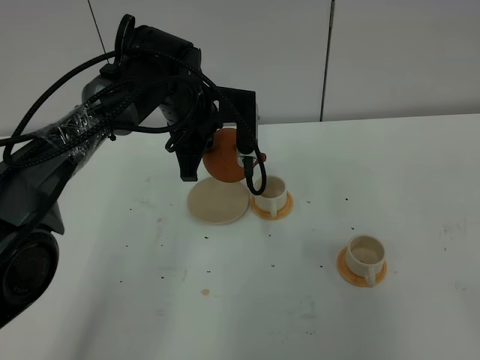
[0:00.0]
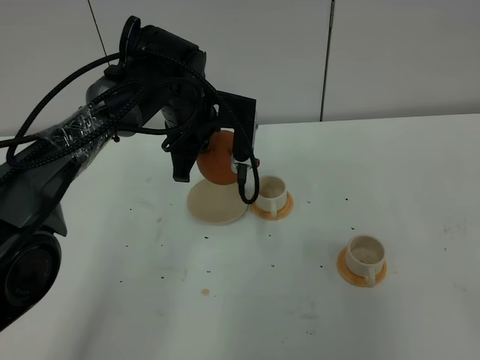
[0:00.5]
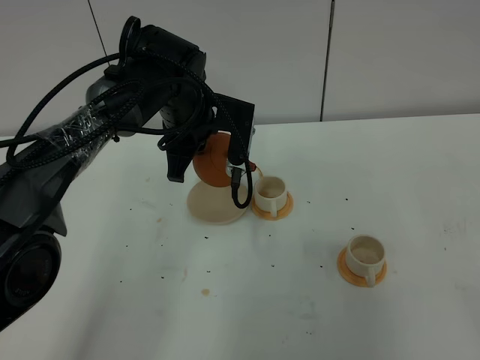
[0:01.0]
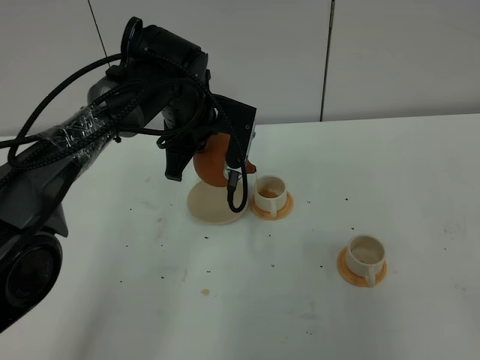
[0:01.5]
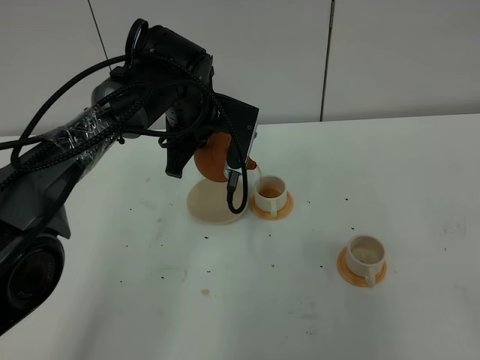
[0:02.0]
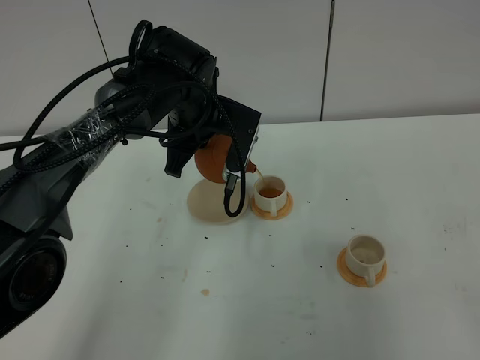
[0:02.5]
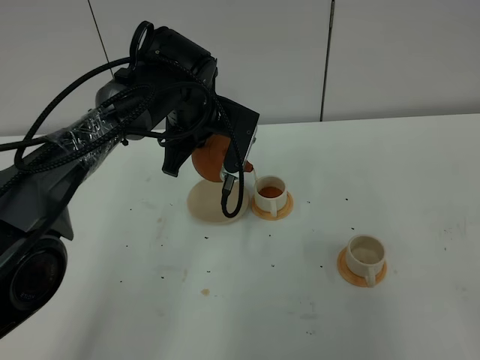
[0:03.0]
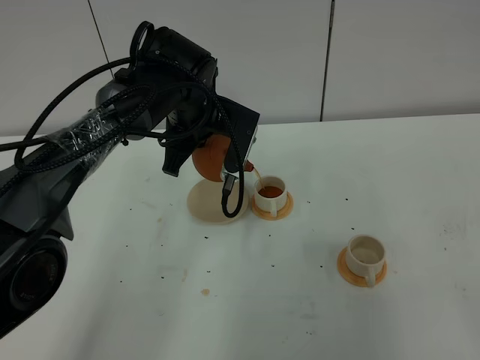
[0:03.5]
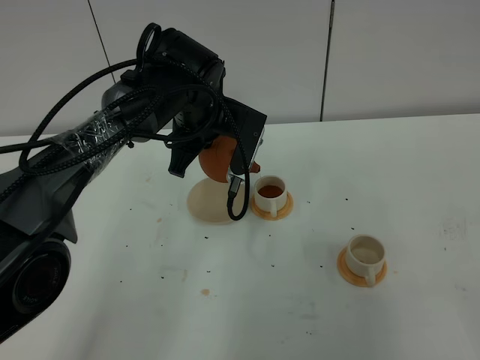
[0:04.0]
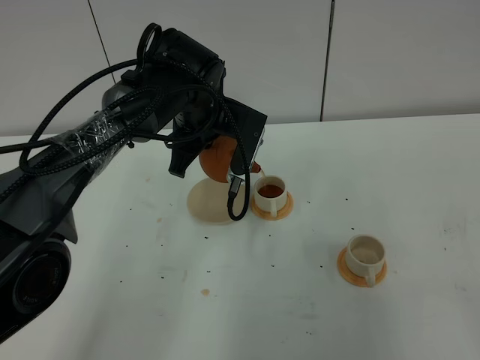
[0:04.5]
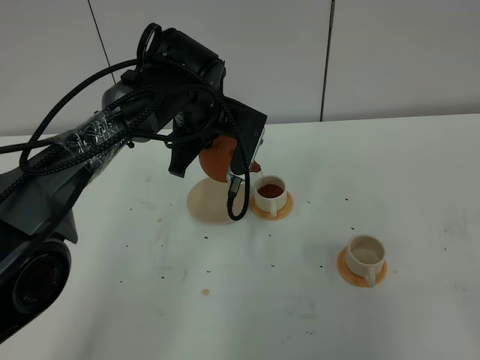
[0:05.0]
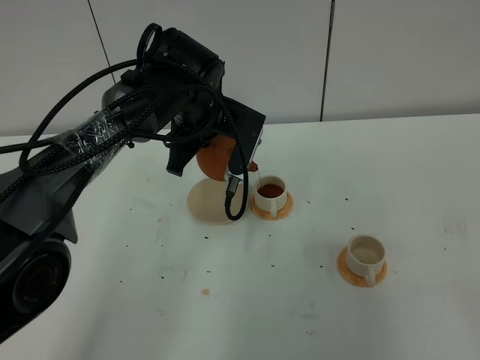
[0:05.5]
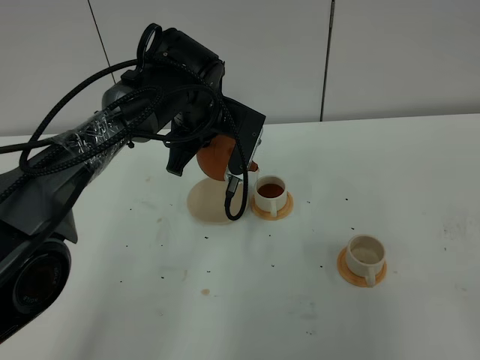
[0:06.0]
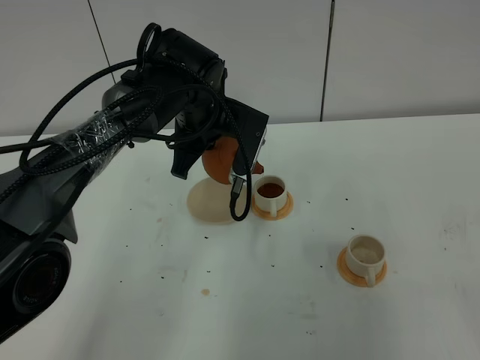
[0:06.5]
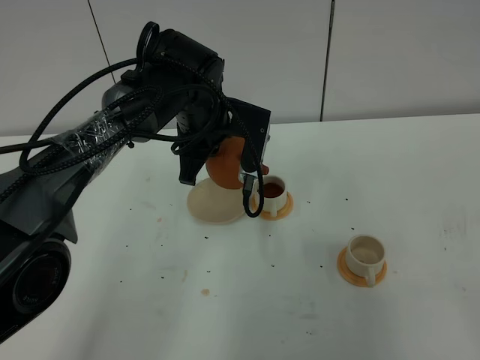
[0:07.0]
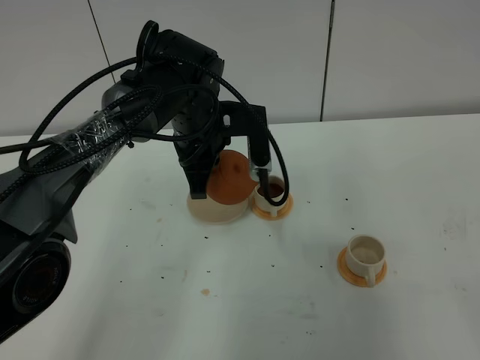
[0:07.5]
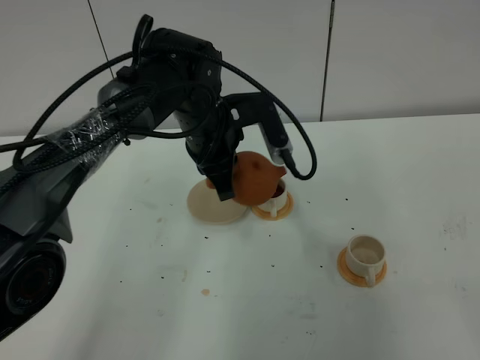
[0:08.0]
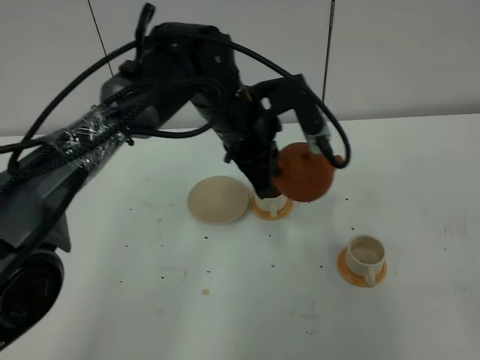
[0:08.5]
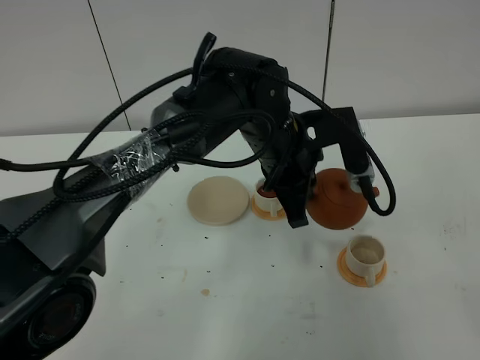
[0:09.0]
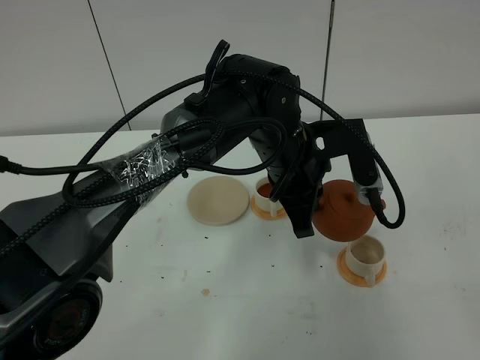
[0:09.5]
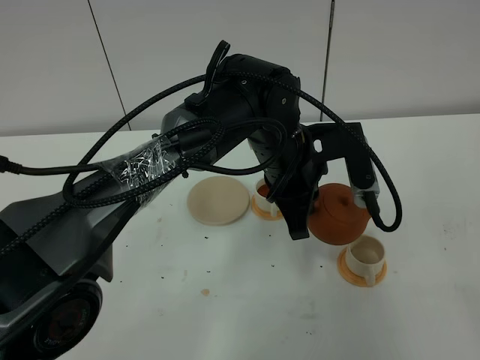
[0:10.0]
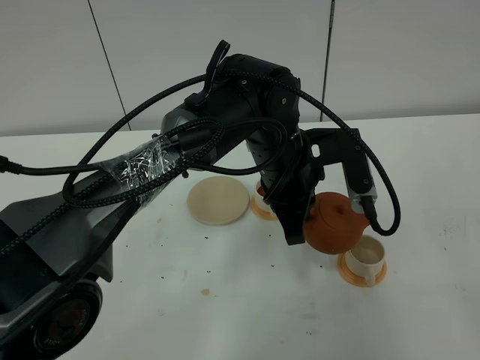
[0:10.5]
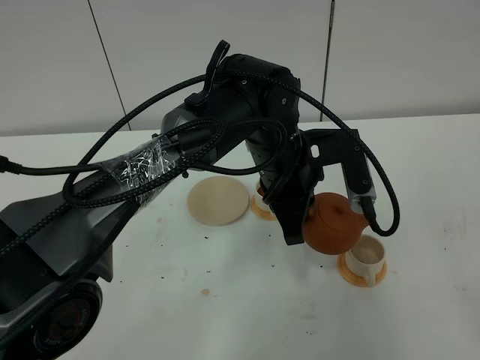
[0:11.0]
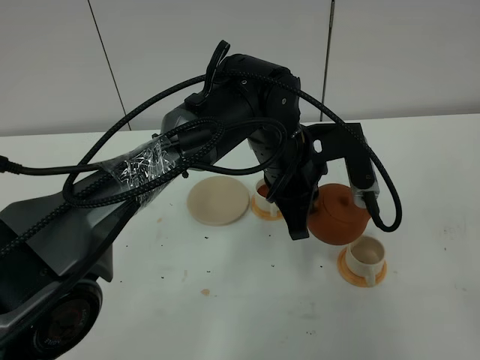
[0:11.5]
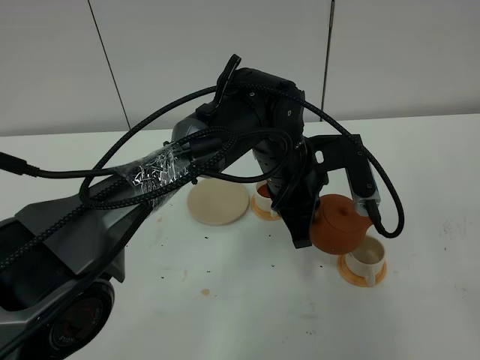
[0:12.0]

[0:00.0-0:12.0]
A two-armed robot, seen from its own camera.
Task of the whole recording: grasp the brown teapot and pour the tea into the two white teacups one by one, put the brown teapot back in its original place.
Step, 0:00.0 to 0:08.0: Pour tea into the teacup with the left gripper.
0:00.0 to 0:02.0: The grippers move only a little.
0:02.0 to 0:04.0: The grippers move only a little.
0:04.0 to 0:06.0: Both grippers stay about where they are.
0:08.0 to 0:10.0: The left gripper shifts roughly 10 cm to the right and backward.
0:10.0 to 0:12.0: There are only small adjustments of the grippers.

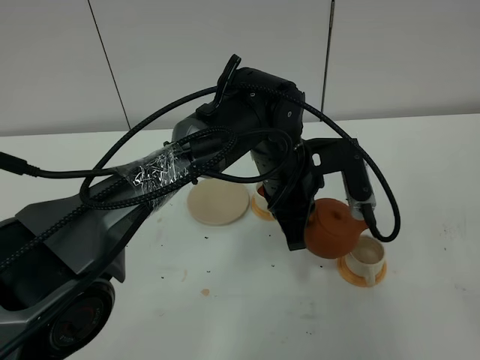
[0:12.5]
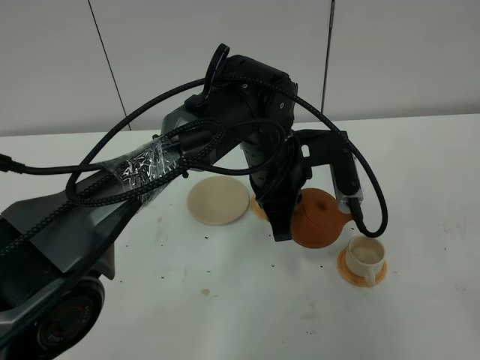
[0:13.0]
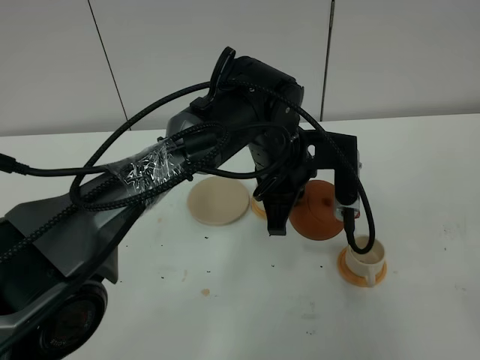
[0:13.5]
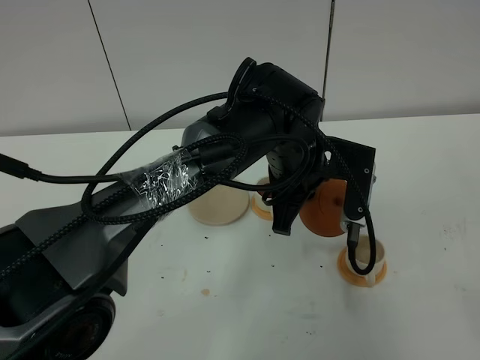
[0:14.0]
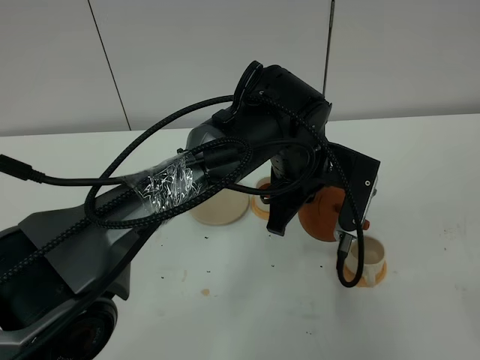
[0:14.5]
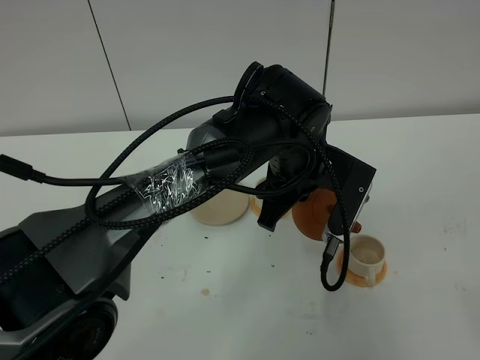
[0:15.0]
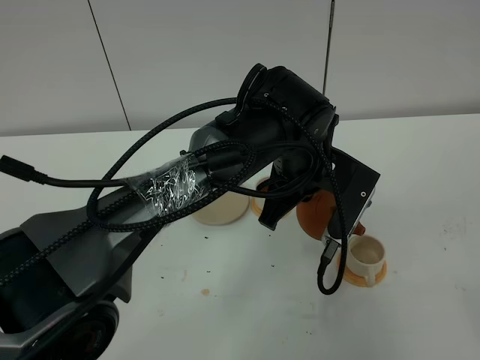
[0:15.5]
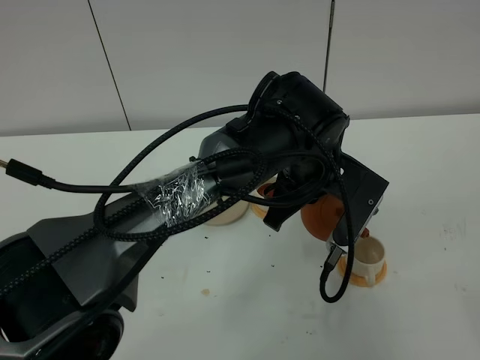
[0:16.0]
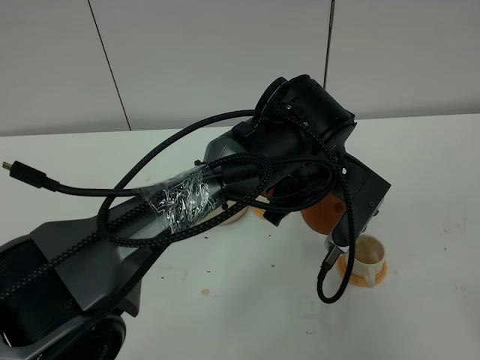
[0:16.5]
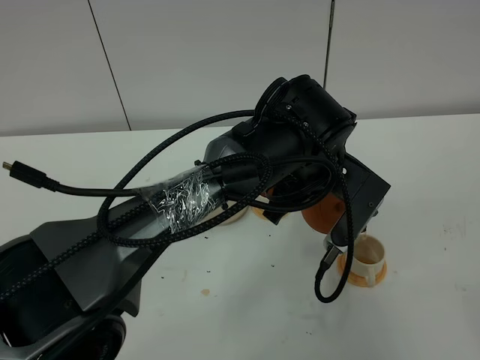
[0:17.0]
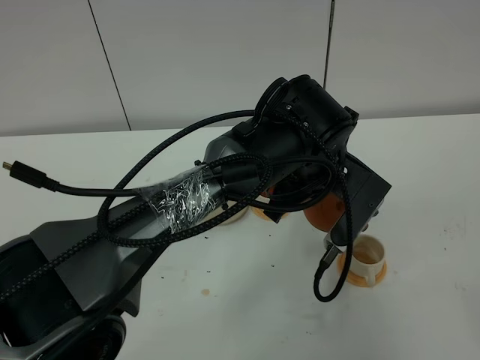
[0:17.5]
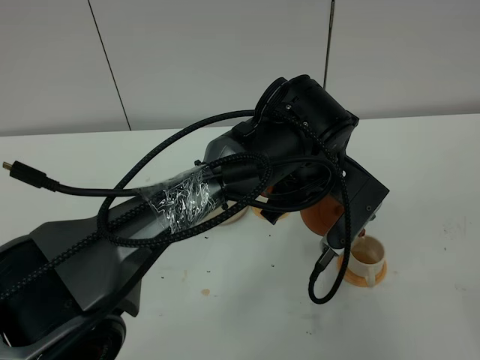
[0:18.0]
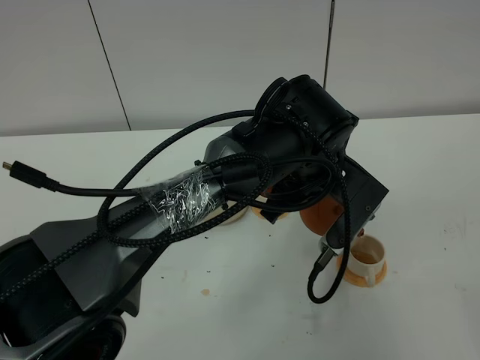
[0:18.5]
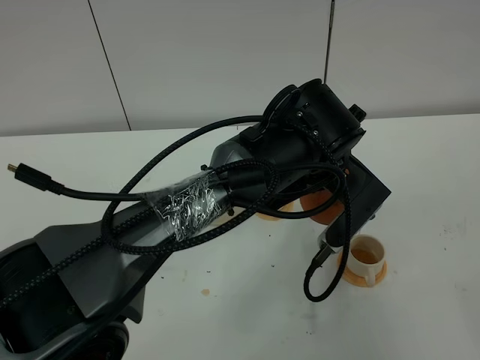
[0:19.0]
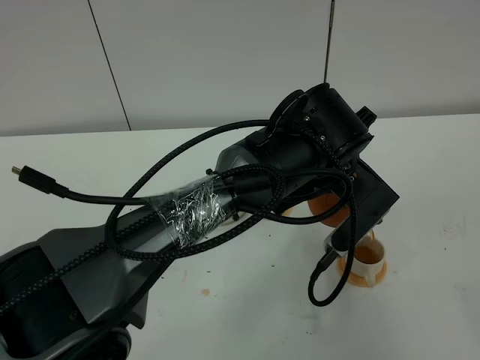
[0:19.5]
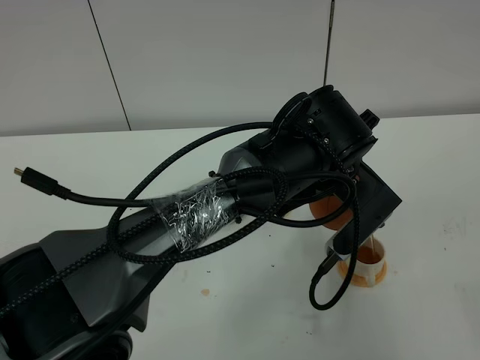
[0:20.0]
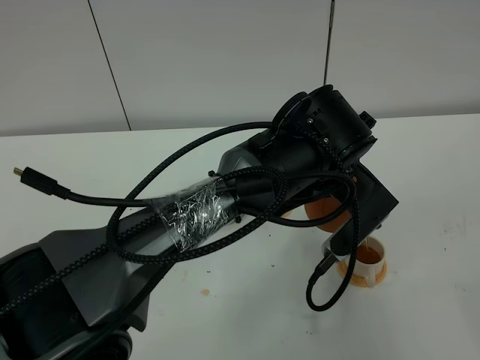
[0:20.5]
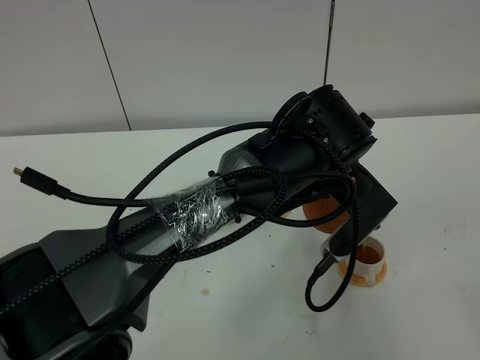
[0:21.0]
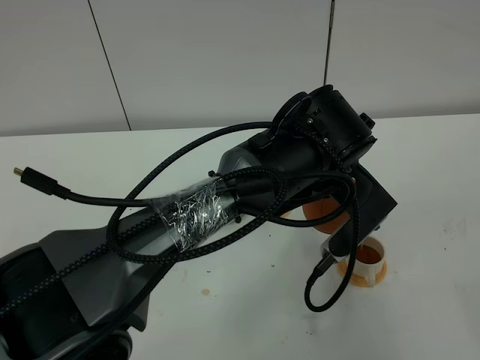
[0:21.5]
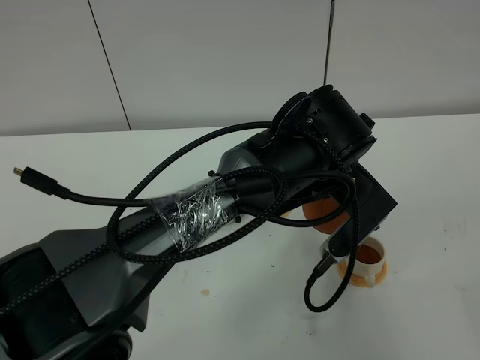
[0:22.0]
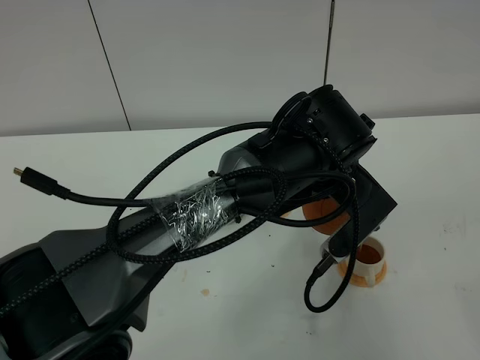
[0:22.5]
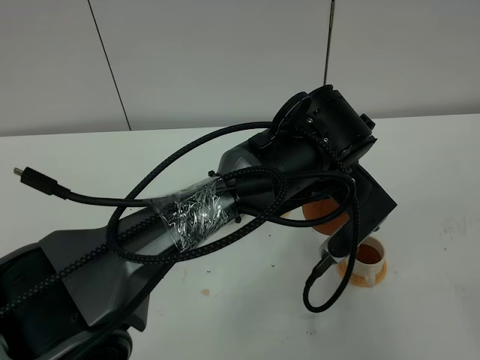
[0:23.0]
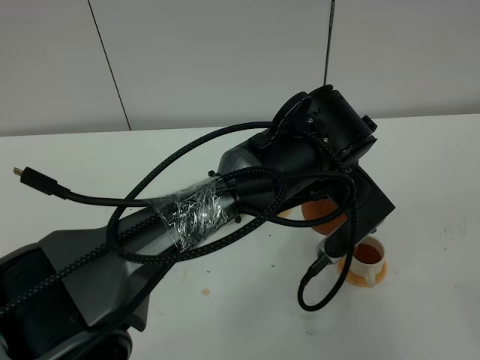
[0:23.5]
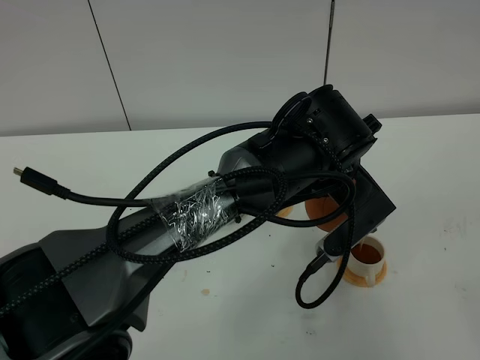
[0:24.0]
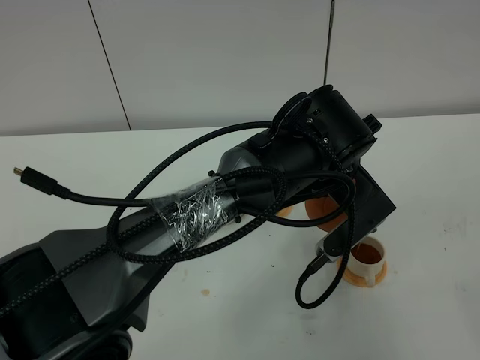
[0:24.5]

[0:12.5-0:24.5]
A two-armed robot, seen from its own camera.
Task of the whole recording: grasp the brown teapot and pour the tea into the two white teacups one by one, put the brown teapot back in its original place.
0:14.5 to 0:16.5: The grippers move only a little.
0:16.5 to 0:18.5: Both grippers stay about where they are.
0:18.5 to 0:20.5: The grippers move only a little.
0:20.5 to 0:22.5: Both grippers stay put.
0:22.5 to 0:24.5: Both grippers stay put.

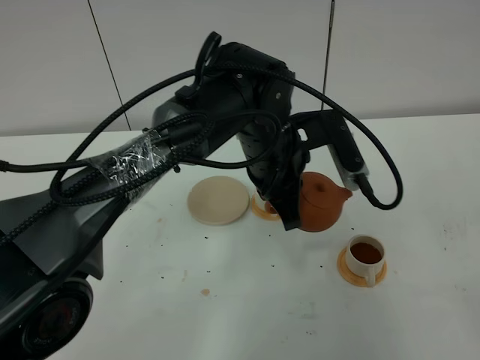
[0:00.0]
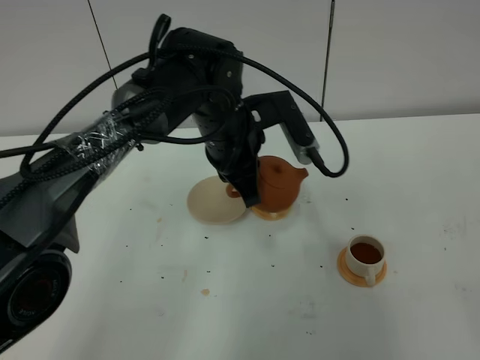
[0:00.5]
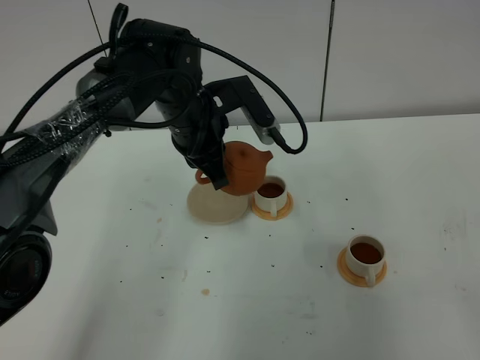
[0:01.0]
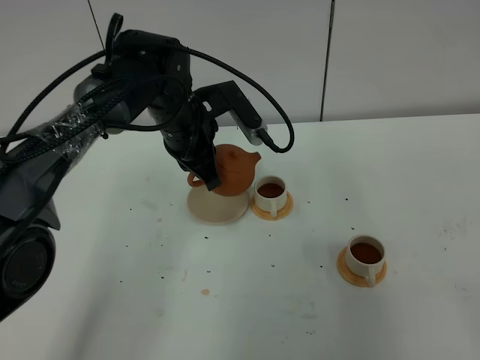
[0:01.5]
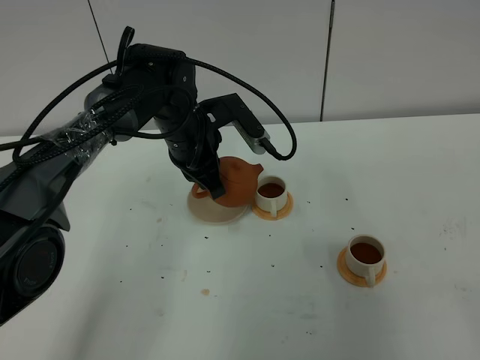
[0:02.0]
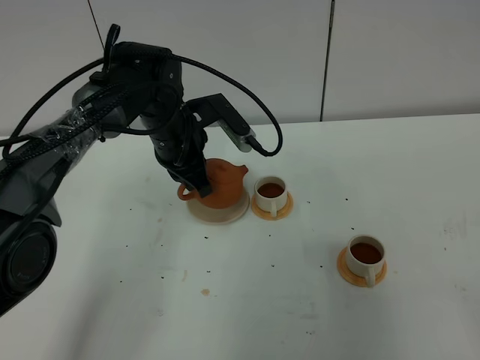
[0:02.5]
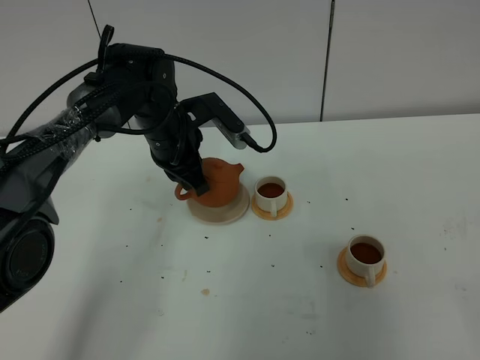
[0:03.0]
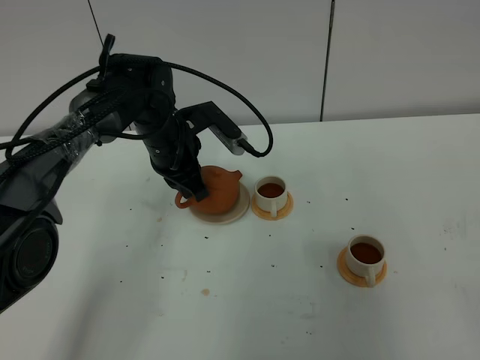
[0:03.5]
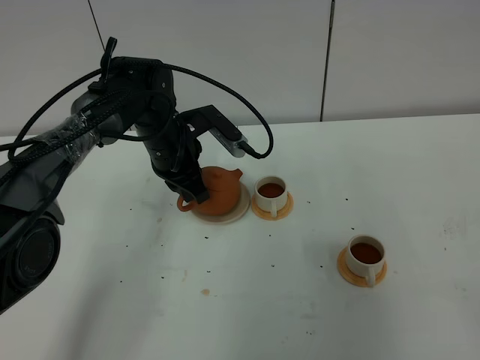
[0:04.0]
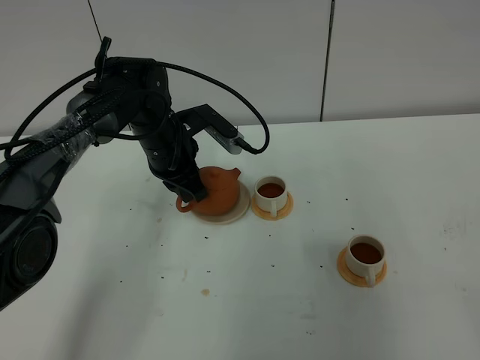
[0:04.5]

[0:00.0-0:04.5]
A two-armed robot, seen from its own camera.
Task of the whole recording: grasp the brown teapot and pour the tea into the two white teacups one by one, put the brown teapot back in its original place.
0:00.0 to 0:02.0: The left gripper heads to the left and forward, covering some 15 cm.
0:02.0 to 0:04.5: The grippers stay close to where they were, moving slightly.
